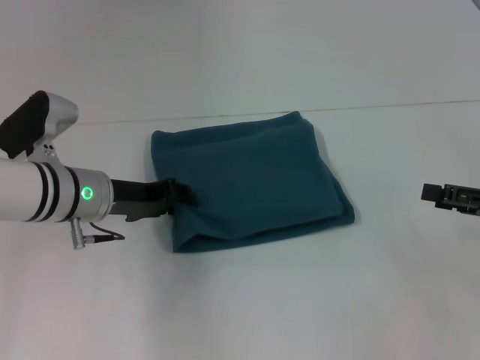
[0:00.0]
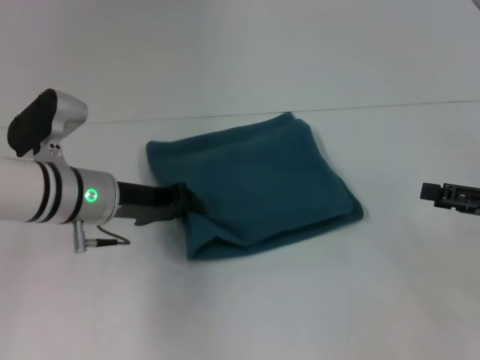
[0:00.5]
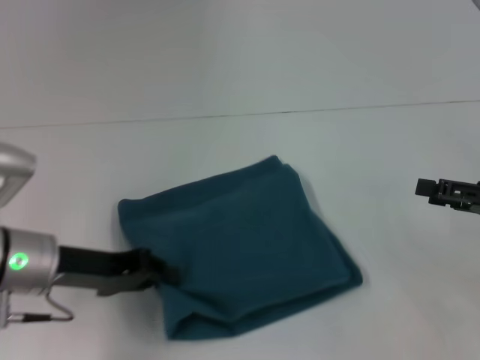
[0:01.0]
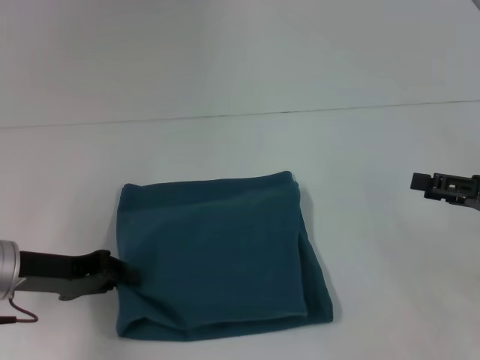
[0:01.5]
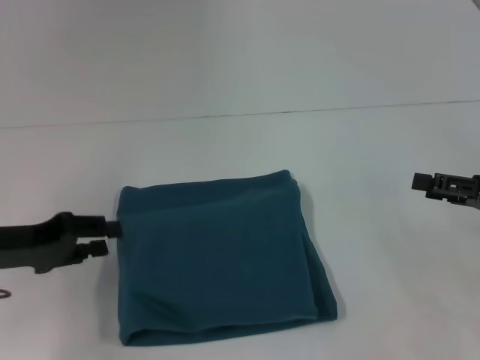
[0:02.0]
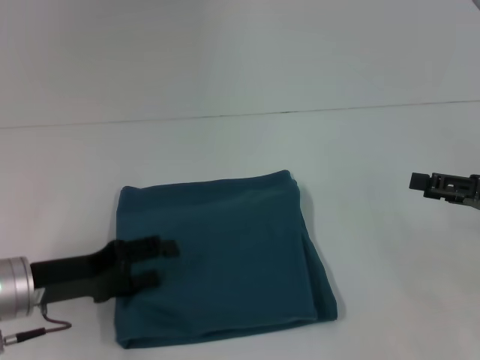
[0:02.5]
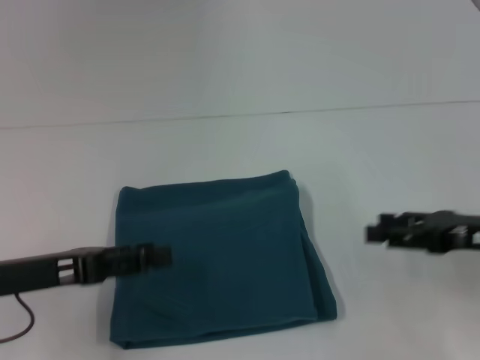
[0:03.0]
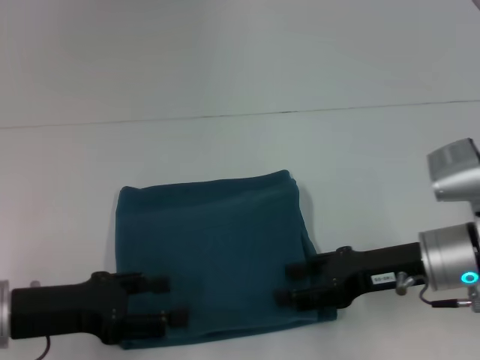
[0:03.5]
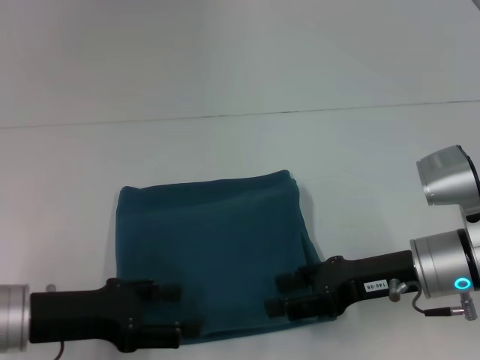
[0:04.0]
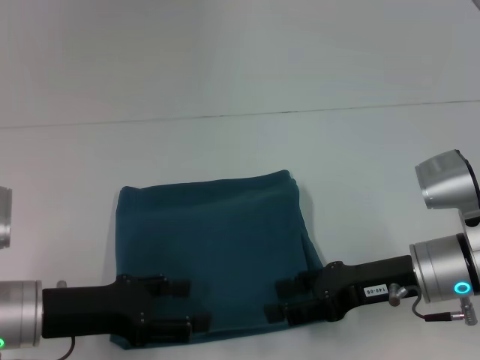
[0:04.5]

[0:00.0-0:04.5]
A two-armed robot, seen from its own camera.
0:00.0 to 0:02.0: The left gripper travels to the left and backward by some 15 cm.
0:02.0 to 0:04.5: The left gripper goes about 5 cm to the right, and opens its fingers. The right gripper moves to the left, about 15 cm.
